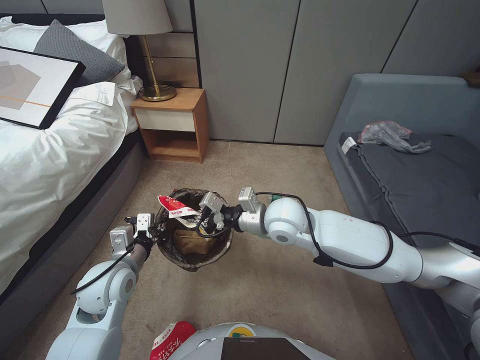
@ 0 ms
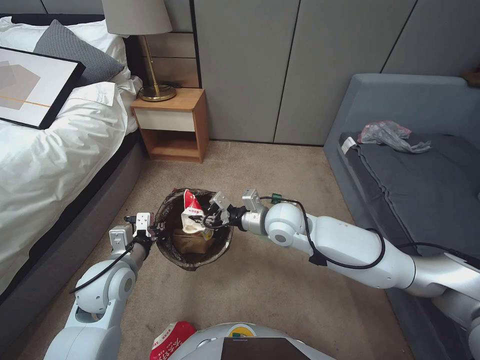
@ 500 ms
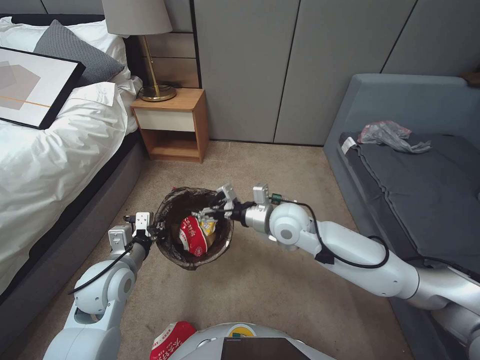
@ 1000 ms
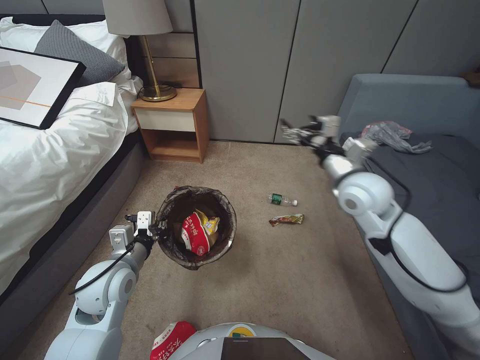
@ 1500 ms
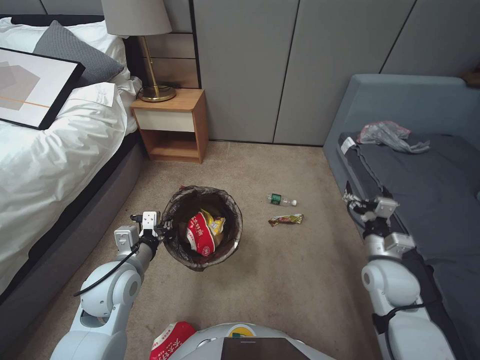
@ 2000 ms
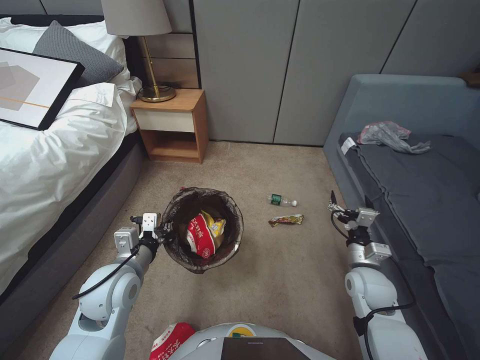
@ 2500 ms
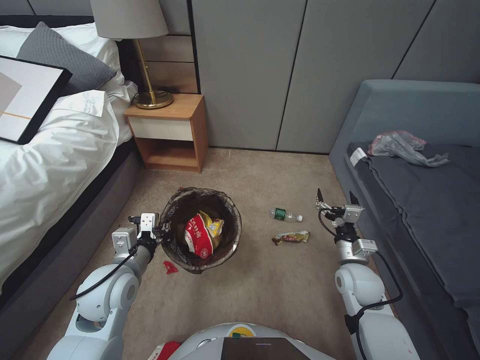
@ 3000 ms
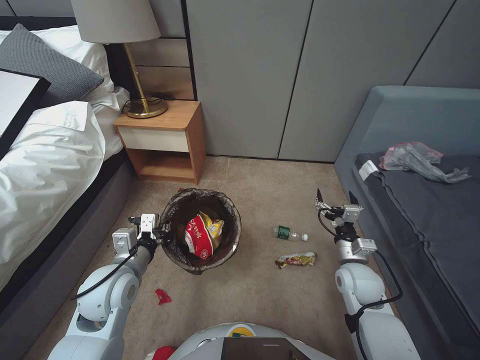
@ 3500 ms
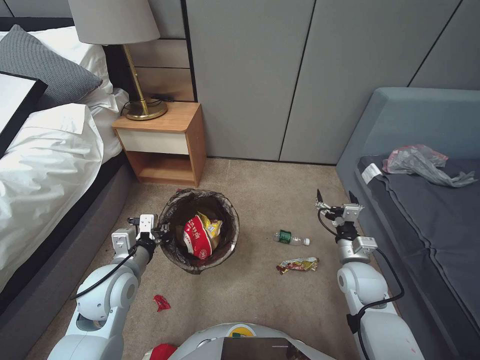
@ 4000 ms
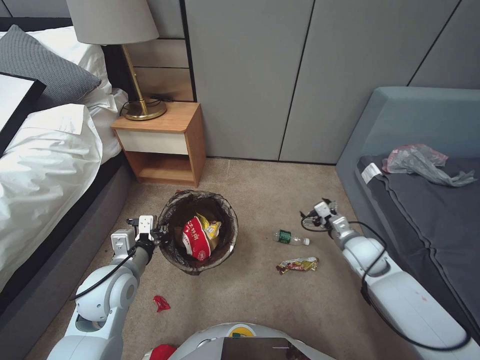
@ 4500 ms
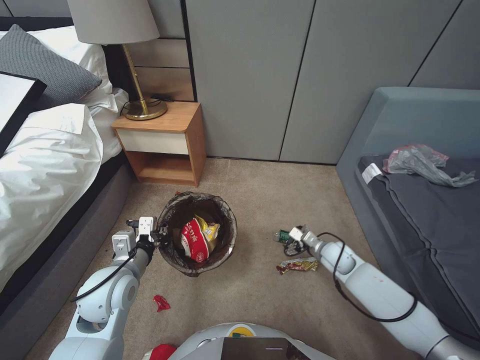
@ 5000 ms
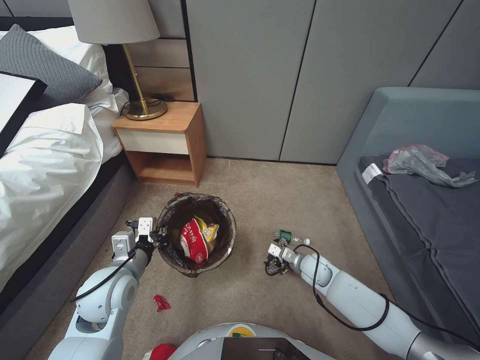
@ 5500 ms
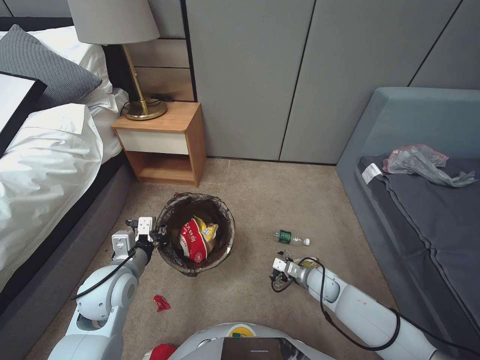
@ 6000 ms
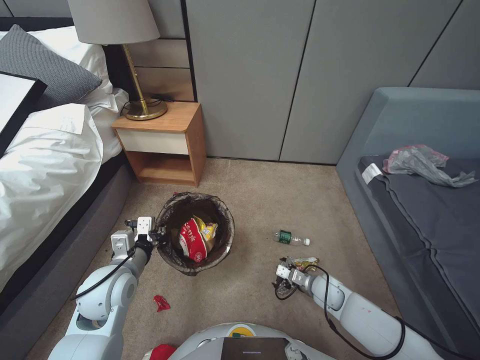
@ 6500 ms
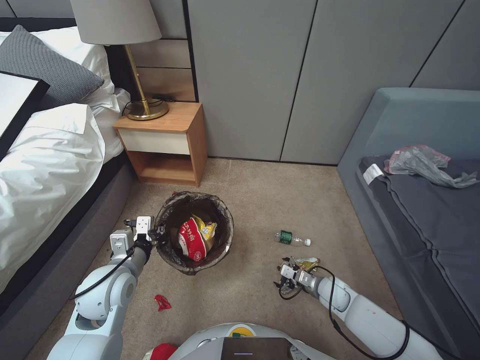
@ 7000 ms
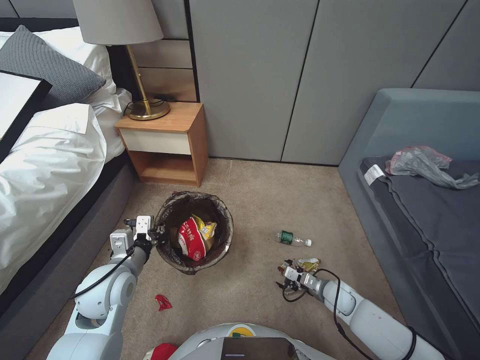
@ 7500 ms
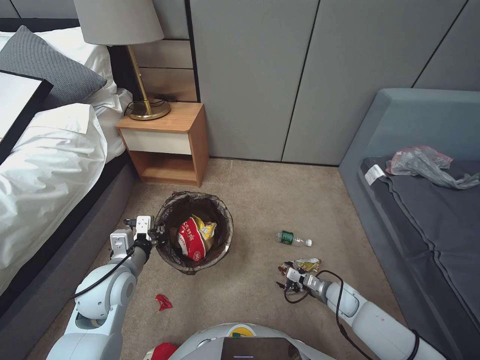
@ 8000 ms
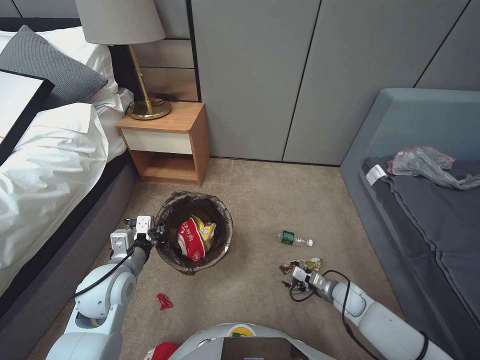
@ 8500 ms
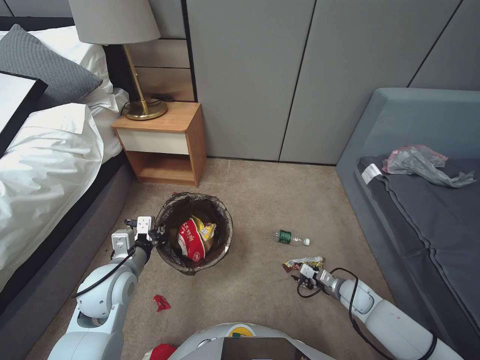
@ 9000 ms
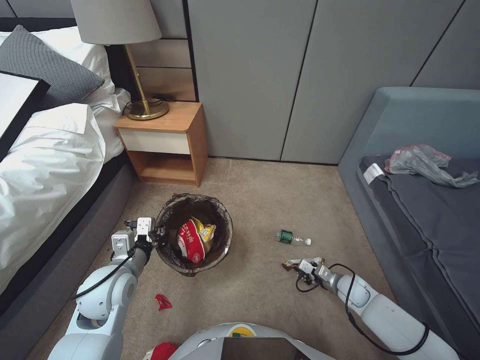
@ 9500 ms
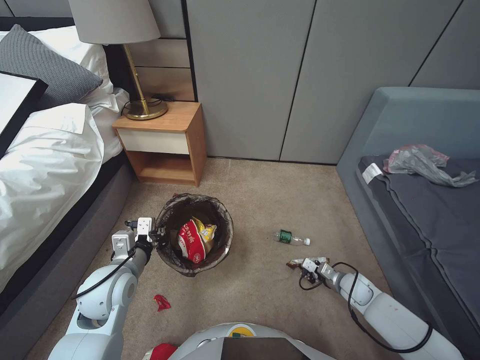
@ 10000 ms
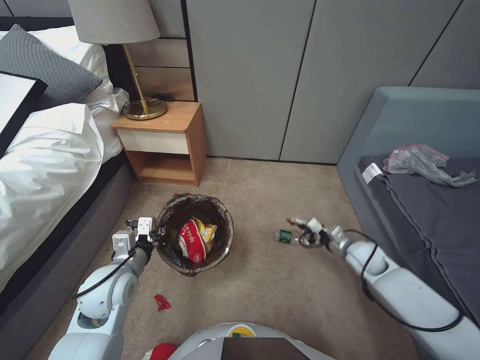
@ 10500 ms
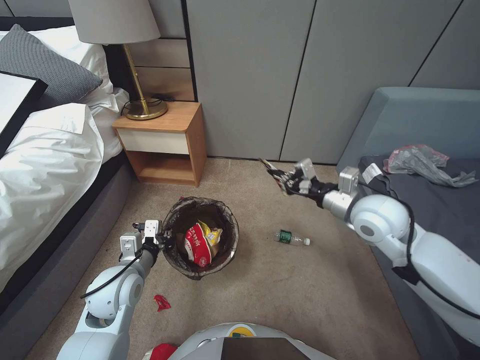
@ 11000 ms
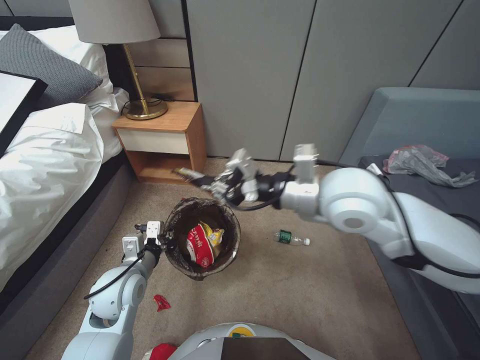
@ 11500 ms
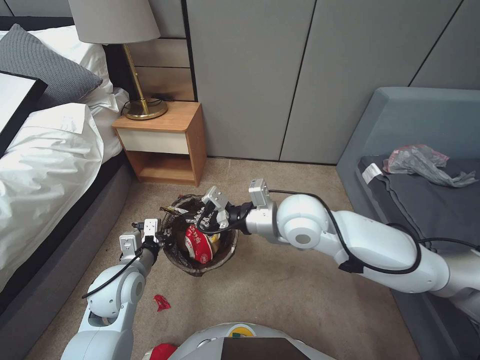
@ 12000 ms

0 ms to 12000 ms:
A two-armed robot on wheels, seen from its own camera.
Task of the whole recording: Pick up the trash bin, then pick up the garbage from the floor and place it into the trash bin.
0 ms to 2000 ms: The right gripper shifts about 25 cm to the right, and opens its fingers.
2000 ms to 4000 ms: The right gripper travels downward by roughly 10 cm.
4000 ms to 6000 ms: The right gripper travels downward by approximately 15 cm.
6000 ms to 8000 ms: The right gripper goes some 10 cm to the right.
8000 ms to 10000 ms: The right gripper ends up about 5 cm from where it was, and closes up.
10000 ms to 12000 ms: The right gripper is displaced upward and to the left by approximately 50 cm.

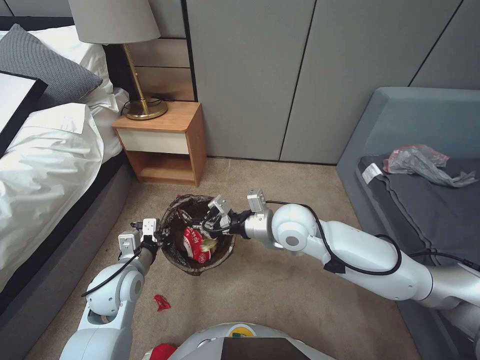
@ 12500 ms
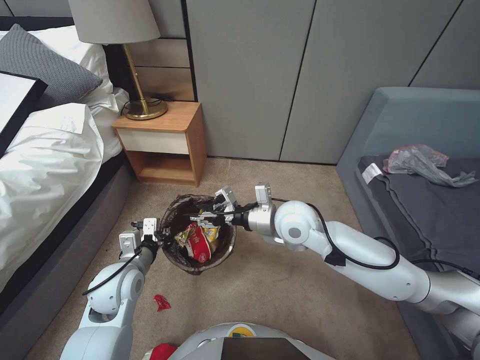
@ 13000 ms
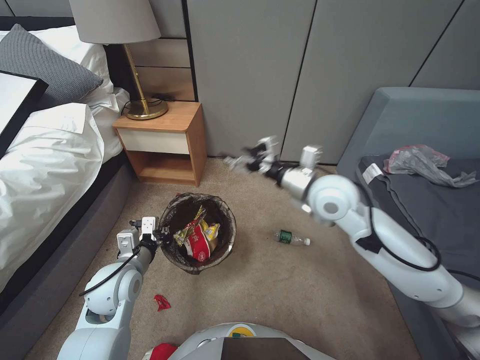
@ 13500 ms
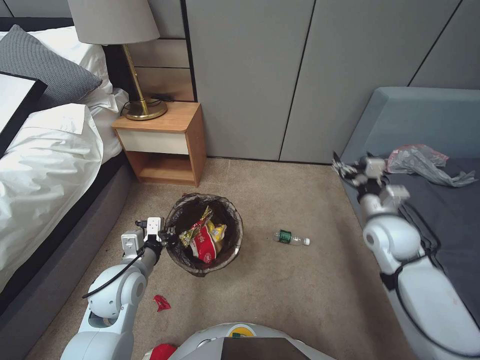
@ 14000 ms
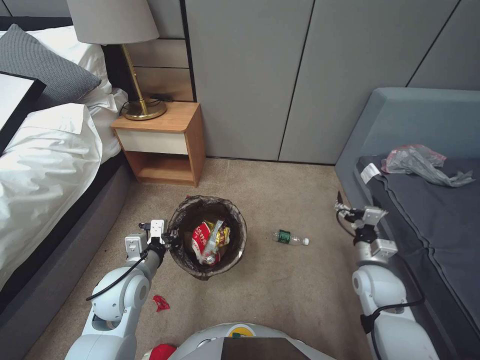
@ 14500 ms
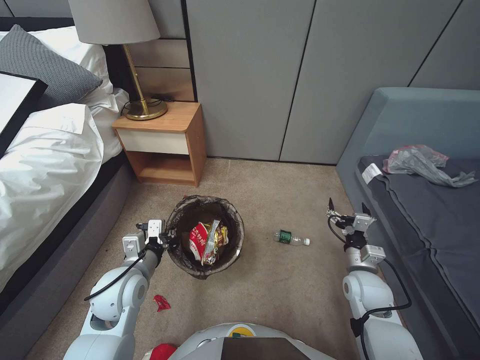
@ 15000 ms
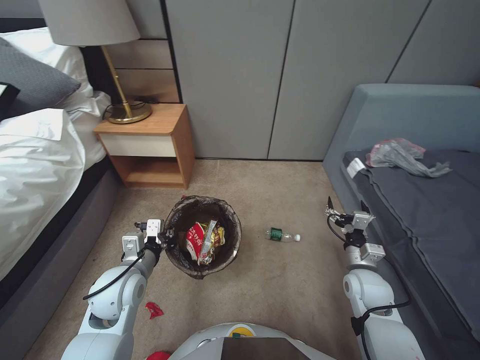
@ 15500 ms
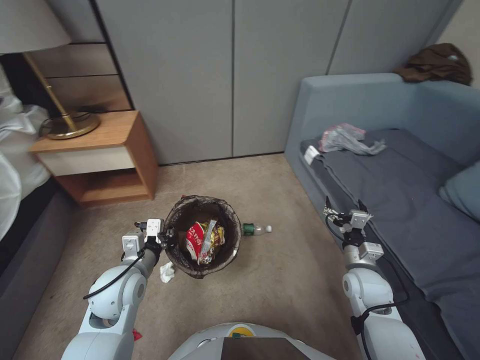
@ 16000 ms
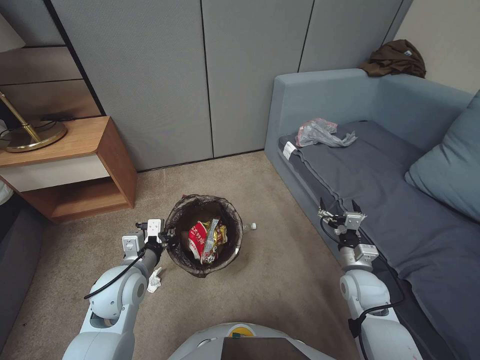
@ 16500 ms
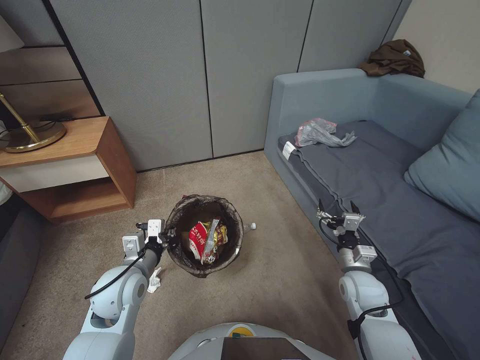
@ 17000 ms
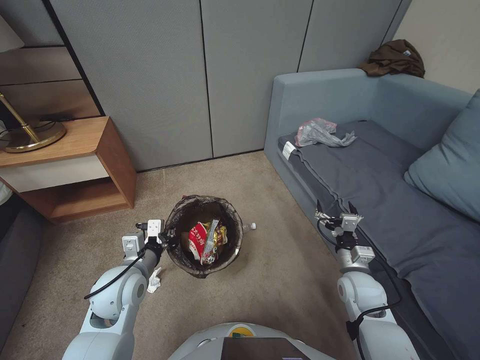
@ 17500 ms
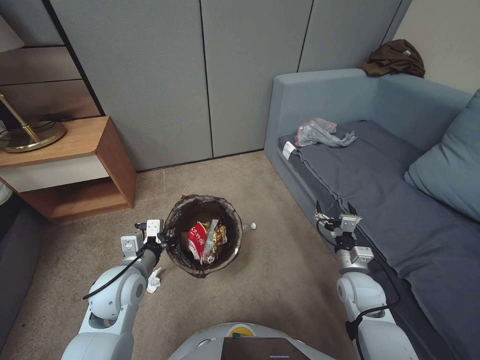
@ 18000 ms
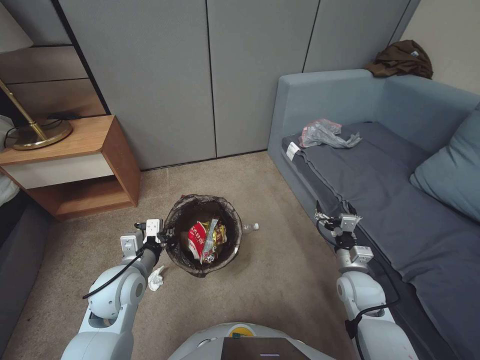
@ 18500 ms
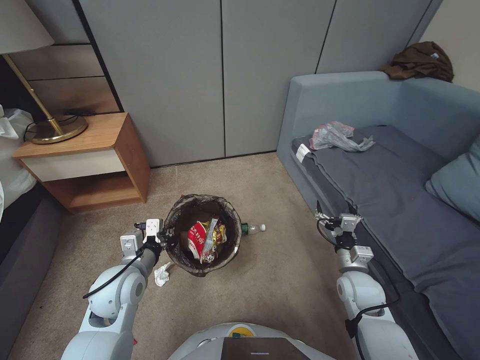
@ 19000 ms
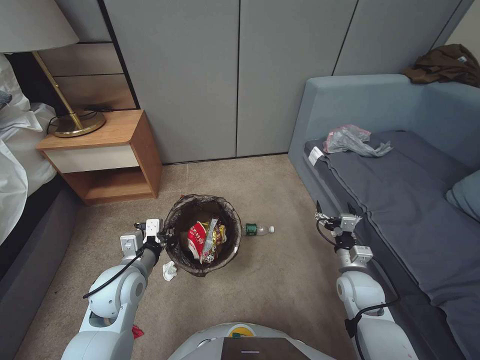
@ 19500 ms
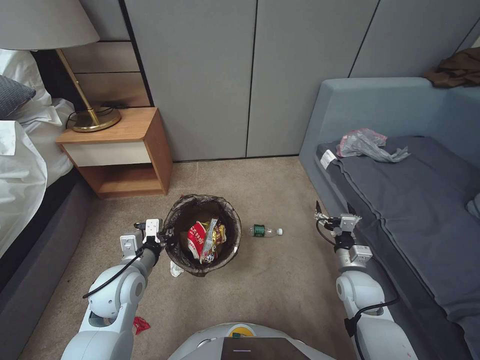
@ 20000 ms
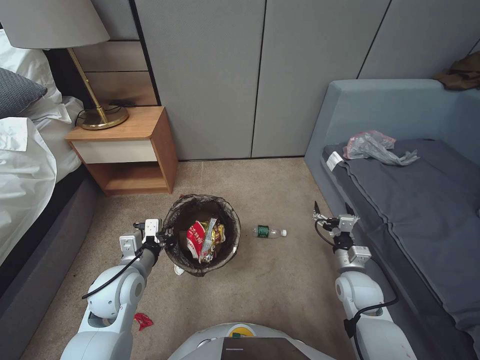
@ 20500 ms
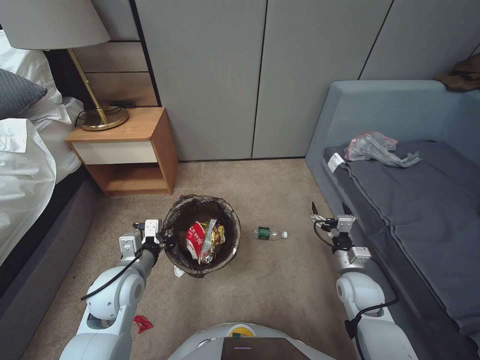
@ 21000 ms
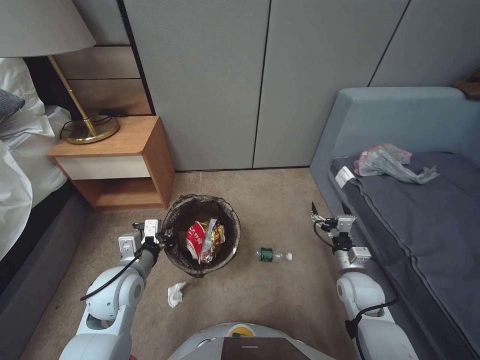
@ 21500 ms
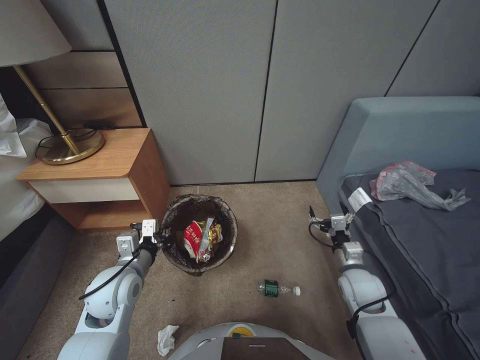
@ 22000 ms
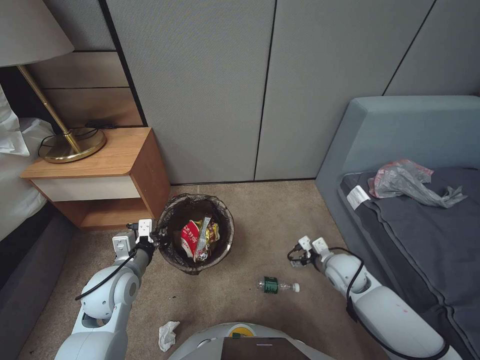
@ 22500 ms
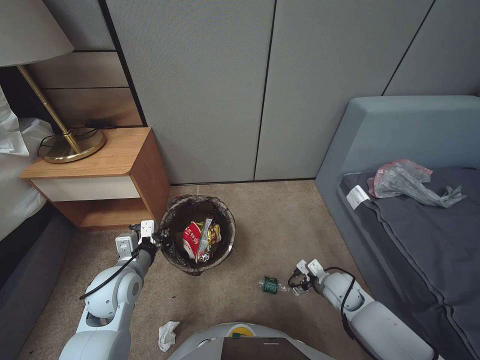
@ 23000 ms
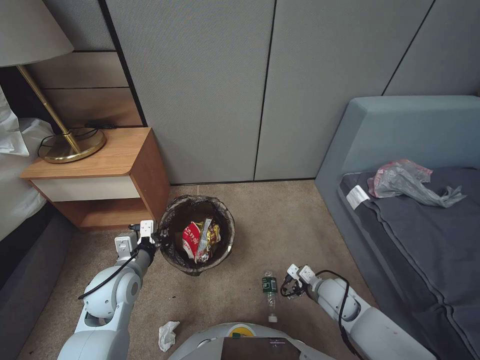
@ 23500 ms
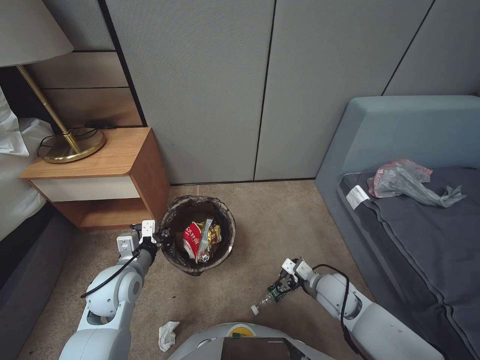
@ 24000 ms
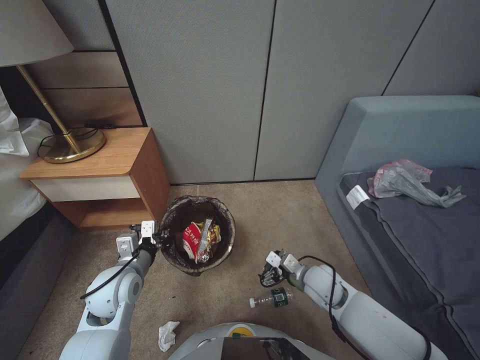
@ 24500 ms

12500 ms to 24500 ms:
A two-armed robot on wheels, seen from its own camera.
Task of the whole recording: Pick up the trash bin, then pick up the garbage from the floor and place it into the trash bin.
12500 ms to 14500 ms: The right gripper travels to the right and downward by approximately 30 cm, and opens up.
14500 ms to 16500 ms: The right gripper is displaced downward by approximately 10 cm.
16500 ms to 18500 ms: Both grippers stay put.
20500 ms to 22500 ms: The right gripper shifts by roughly 5 cm.
22500 ms to 24500 ms: The right gripper shifts approximately 10 cm to the left.

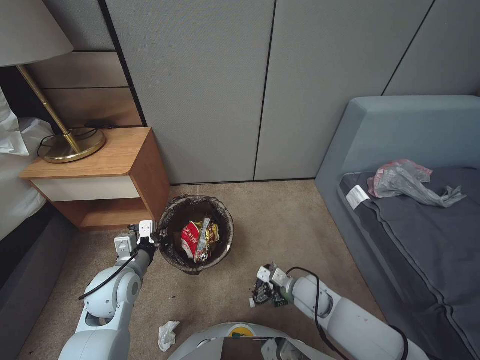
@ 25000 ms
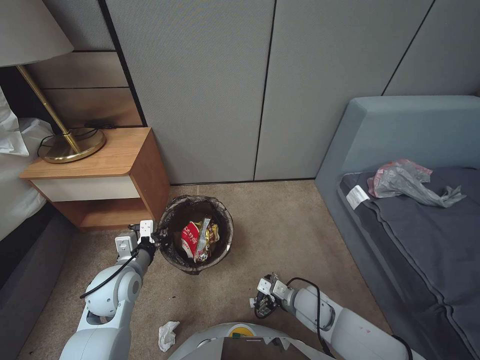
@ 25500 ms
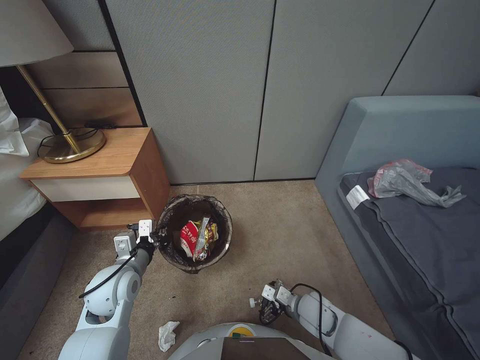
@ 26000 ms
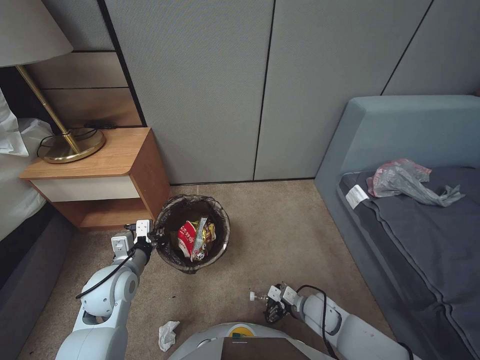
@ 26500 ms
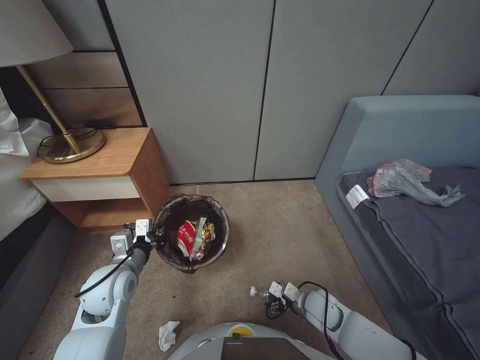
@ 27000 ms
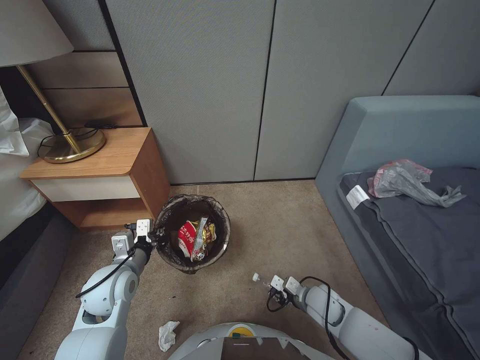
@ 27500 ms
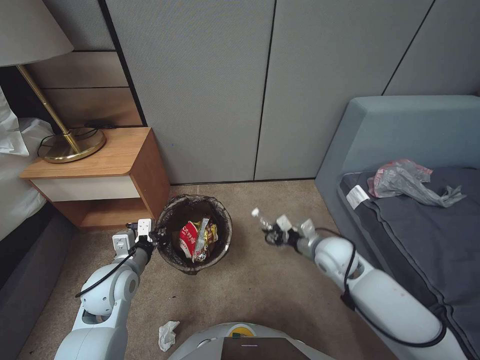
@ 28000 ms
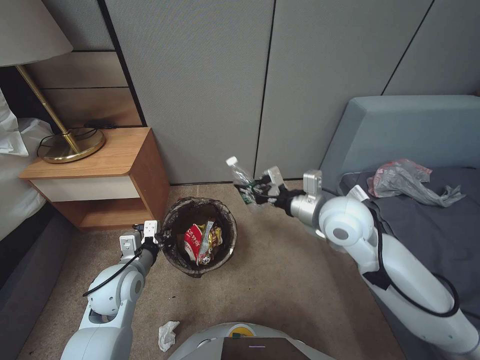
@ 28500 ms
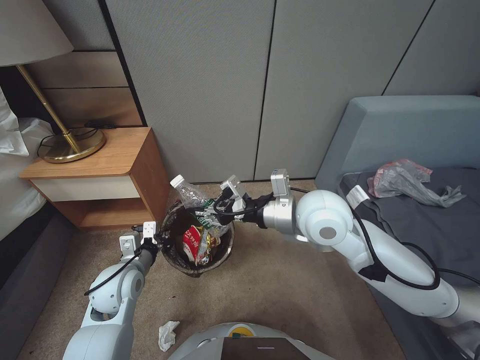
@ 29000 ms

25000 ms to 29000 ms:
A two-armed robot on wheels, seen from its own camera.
Task of the whole recording: Pick up the trash bin, then pick up the garbage from the floor and place it into the trash bin.
25000 ms to 27000 ms: The right gripper shifts roughly 5 cm downward.
27000 ms to 29000 ms: The right gripper shifts about 35 cm upward, and closes.
